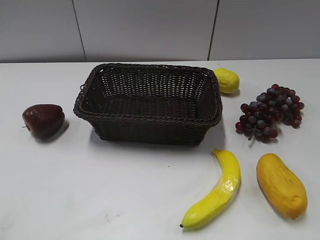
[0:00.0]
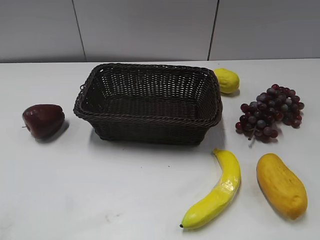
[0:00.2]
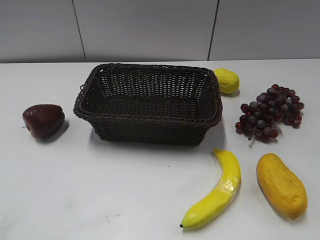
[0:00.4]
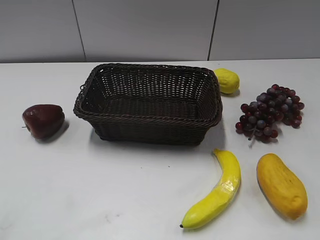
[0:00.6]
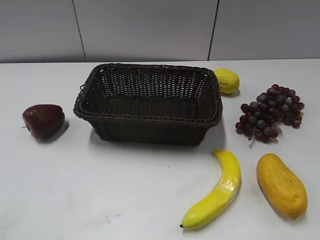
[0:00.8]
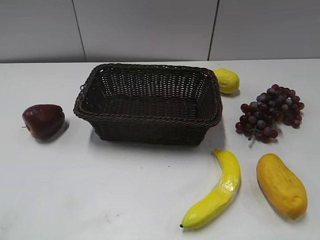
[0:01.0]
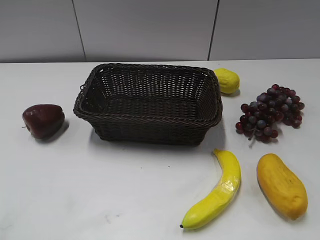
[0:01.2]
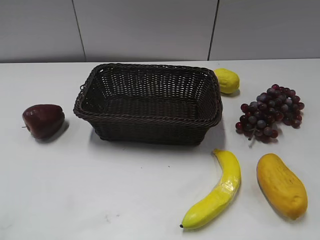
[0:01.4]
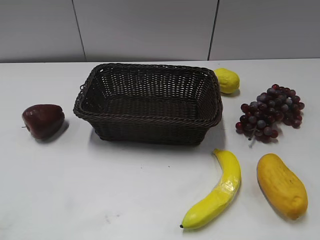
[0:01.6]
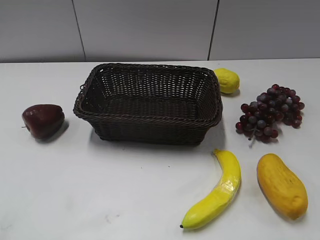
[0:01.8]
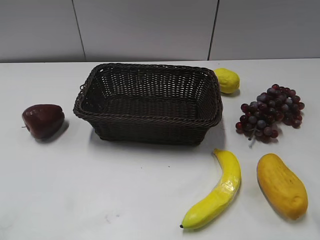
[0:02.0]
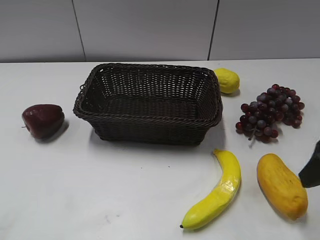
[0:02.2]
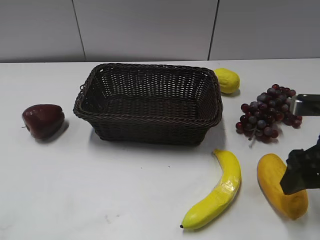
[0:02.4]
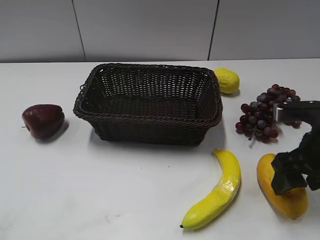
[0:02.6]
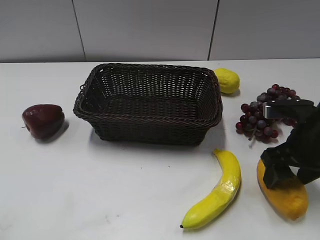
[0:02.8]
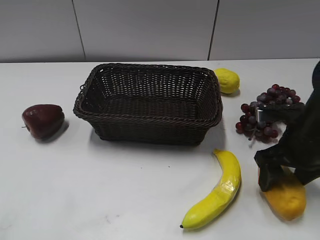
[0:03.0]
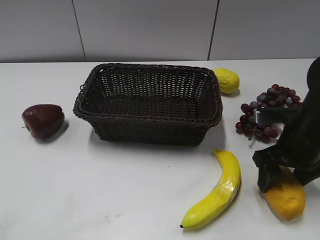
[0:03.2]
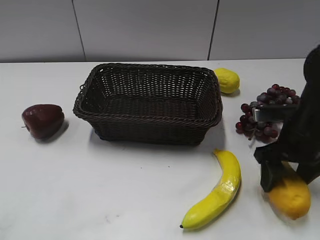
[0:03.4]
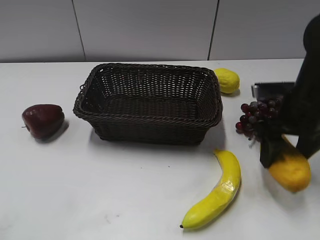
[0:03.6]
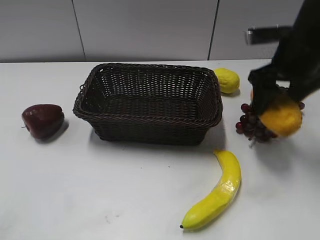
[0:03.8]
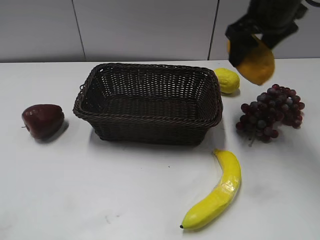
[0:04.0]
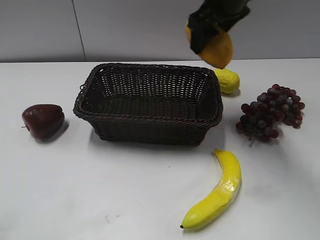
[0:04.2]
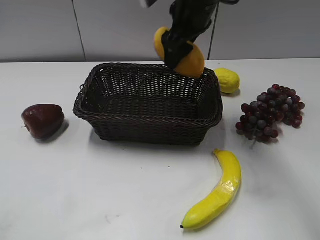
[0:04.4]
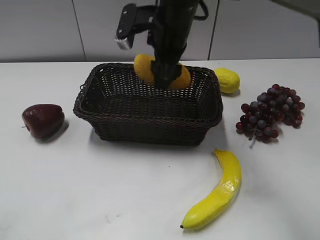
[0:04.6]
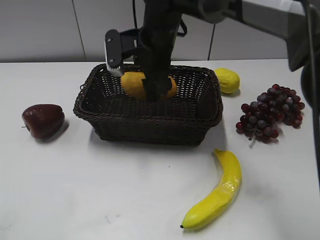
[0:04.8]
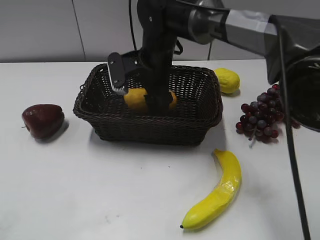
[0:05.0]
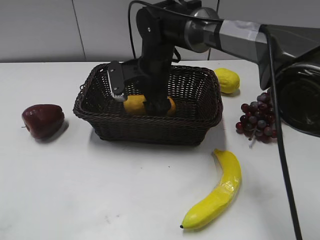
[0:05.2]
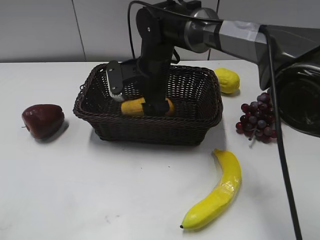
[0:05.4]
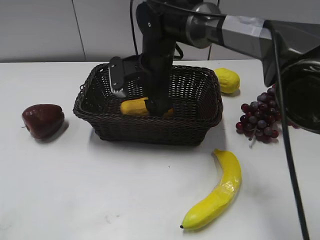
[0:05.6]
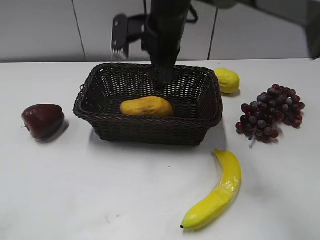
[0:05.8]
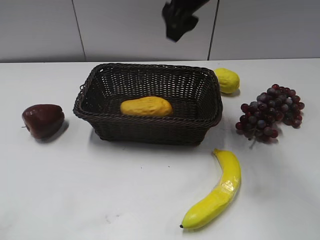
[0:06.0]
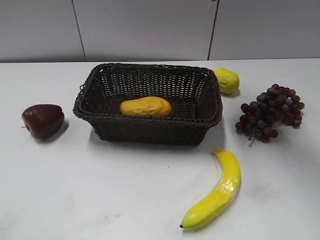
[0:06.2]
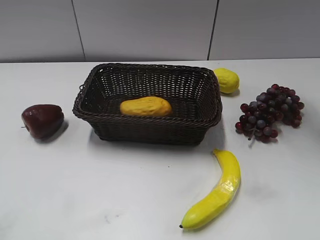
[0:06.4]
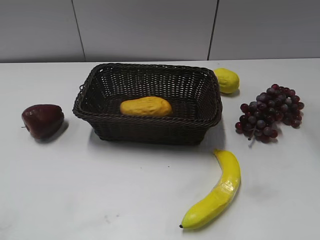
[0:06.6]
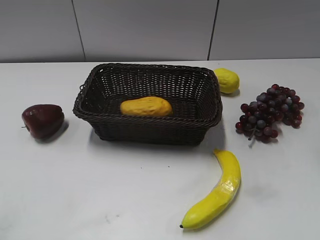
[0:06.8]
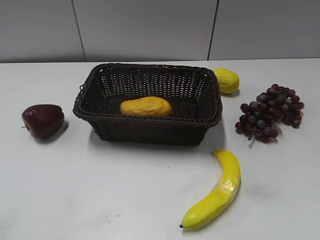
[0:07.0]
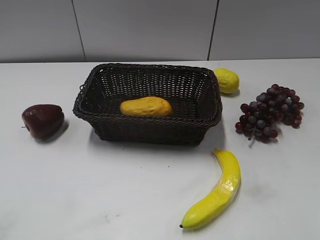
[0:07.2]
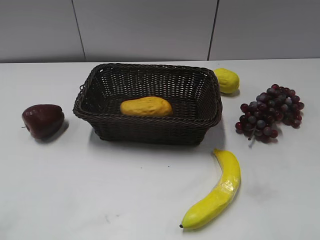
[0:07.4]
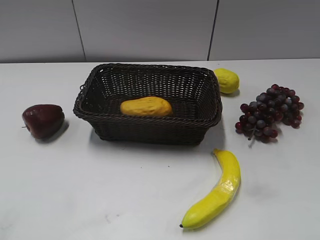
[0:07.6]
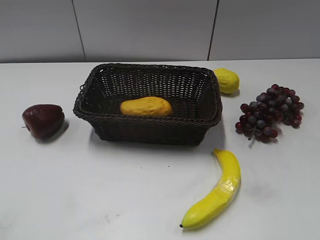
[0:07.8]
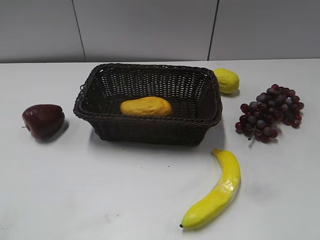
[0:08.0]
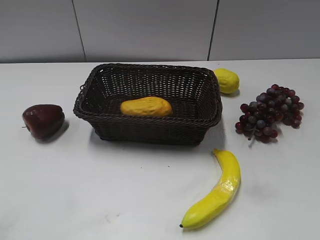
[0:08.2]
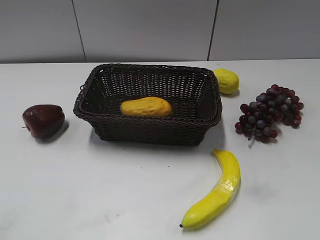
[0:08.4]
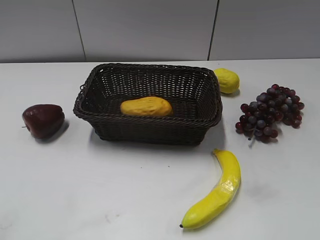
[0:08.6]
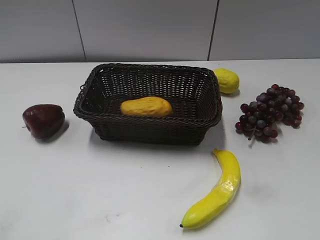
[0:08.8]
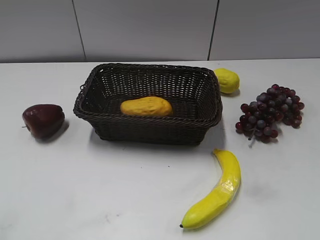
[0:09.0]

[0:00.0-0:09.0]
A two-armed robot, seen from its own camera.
Step, 0:02.2 to 0:03.0: Grasp the mango with right gripper.
Step, 0:03.2 to 0:05.4: Place the mango in the basket with right gripper.
0:01.6 to 0:03.0: The right gripper is displaced forward and downward by some 20 cm.
0:03.0 to 0:04.4: The right gripper travels to the left, forward and upward by some 25 cm.
0:04.4 to 0:06.0: The right gripper heads upward, covering roughly 5 cm.
0:06.0 to 0:07.6: The right gripper goes some 40 cm backward and to the right.

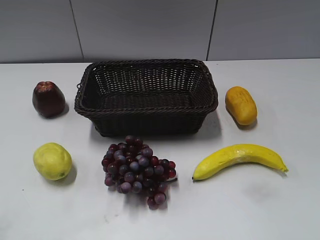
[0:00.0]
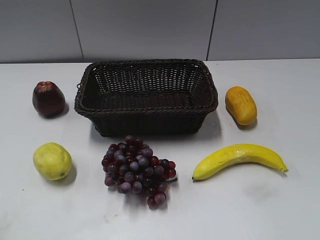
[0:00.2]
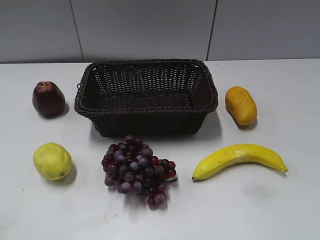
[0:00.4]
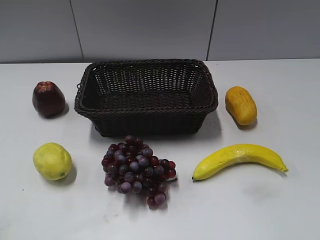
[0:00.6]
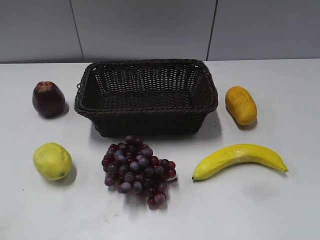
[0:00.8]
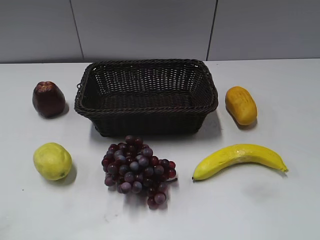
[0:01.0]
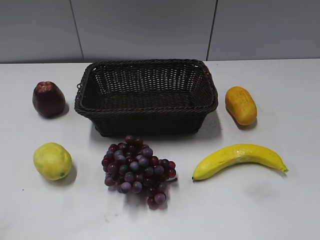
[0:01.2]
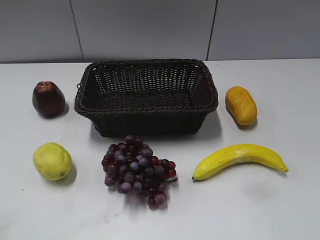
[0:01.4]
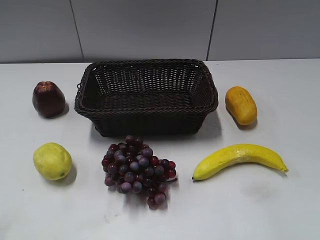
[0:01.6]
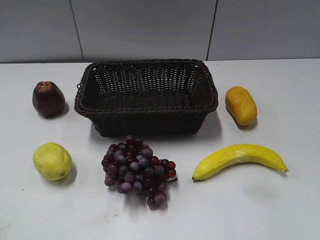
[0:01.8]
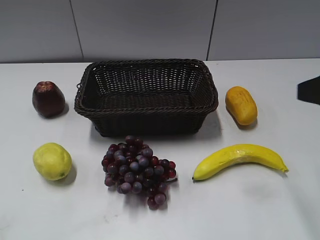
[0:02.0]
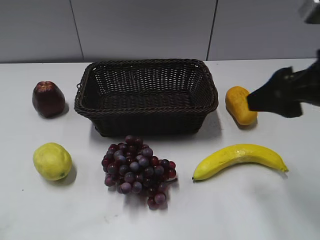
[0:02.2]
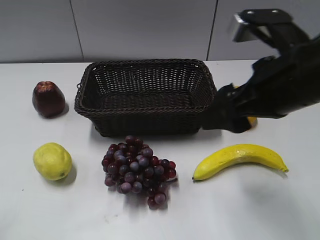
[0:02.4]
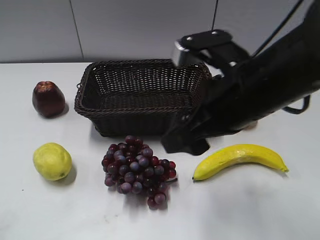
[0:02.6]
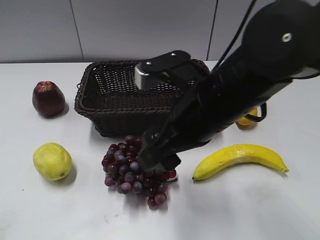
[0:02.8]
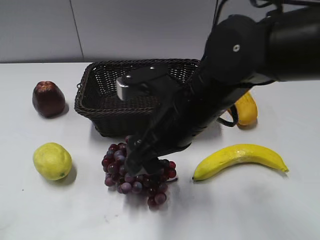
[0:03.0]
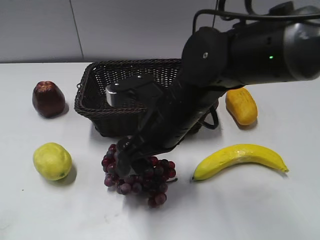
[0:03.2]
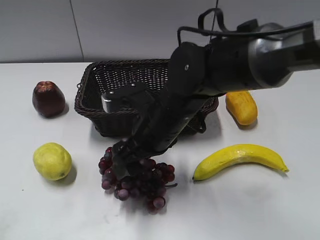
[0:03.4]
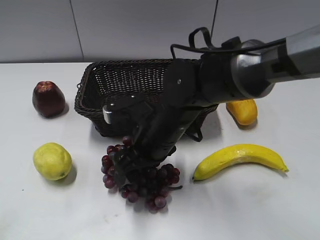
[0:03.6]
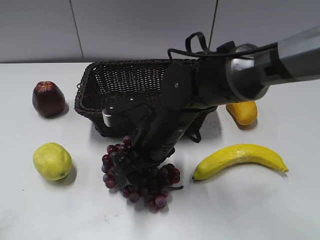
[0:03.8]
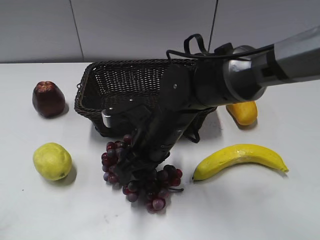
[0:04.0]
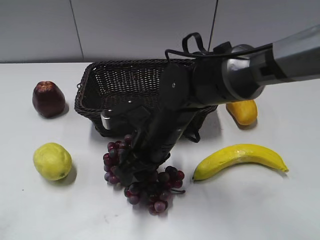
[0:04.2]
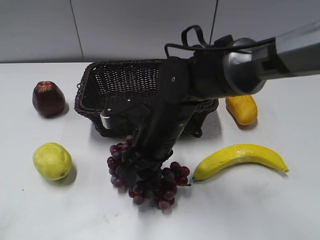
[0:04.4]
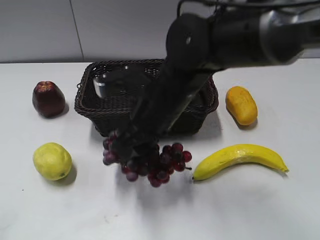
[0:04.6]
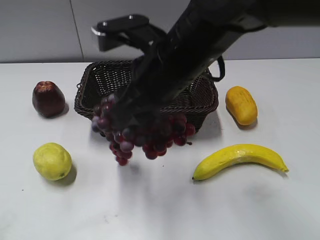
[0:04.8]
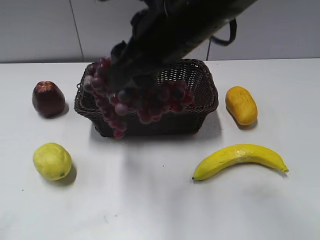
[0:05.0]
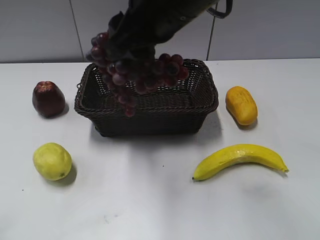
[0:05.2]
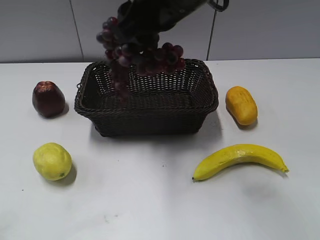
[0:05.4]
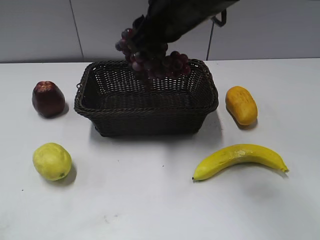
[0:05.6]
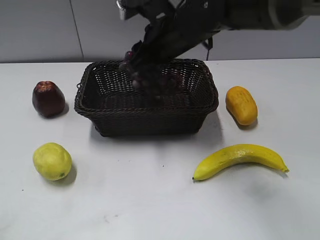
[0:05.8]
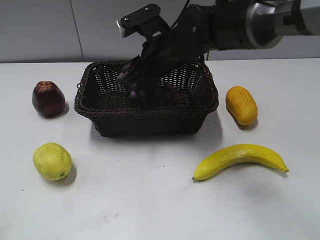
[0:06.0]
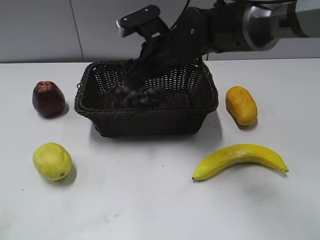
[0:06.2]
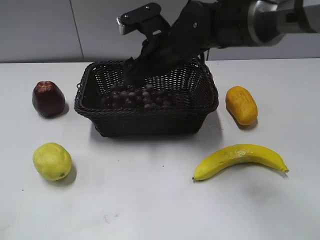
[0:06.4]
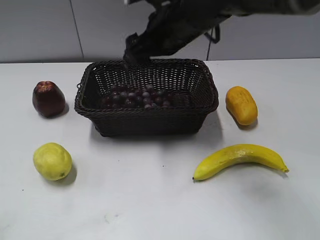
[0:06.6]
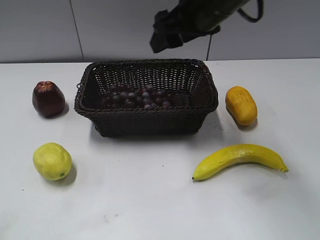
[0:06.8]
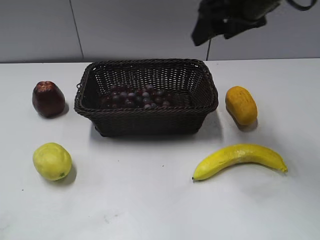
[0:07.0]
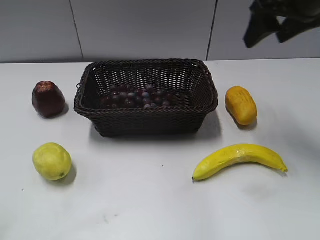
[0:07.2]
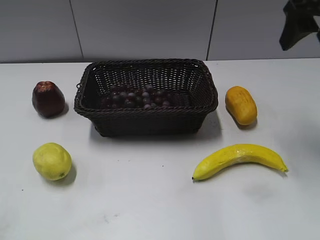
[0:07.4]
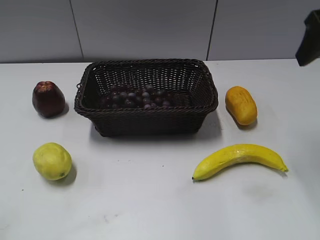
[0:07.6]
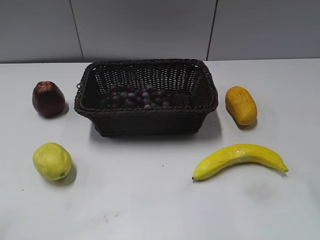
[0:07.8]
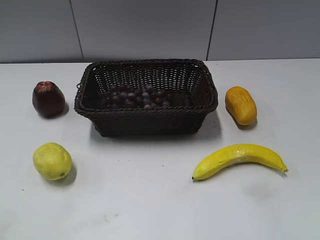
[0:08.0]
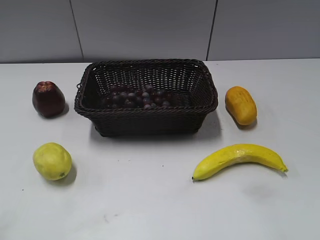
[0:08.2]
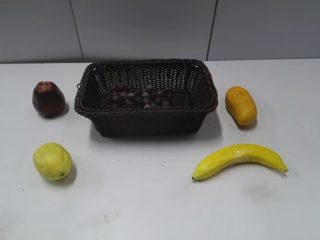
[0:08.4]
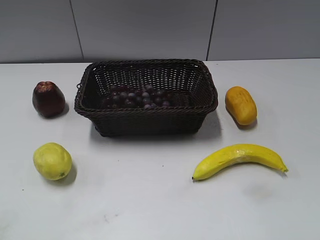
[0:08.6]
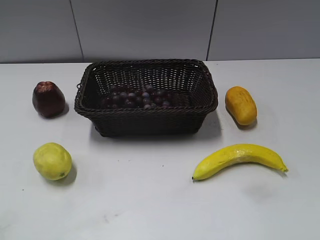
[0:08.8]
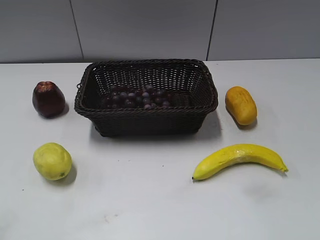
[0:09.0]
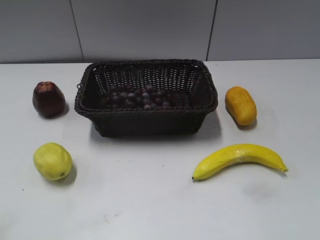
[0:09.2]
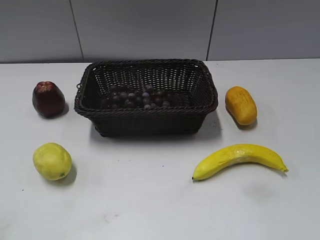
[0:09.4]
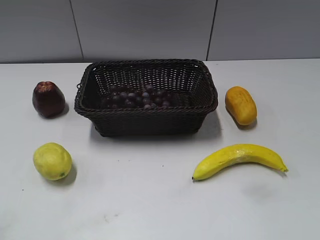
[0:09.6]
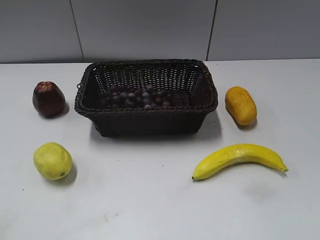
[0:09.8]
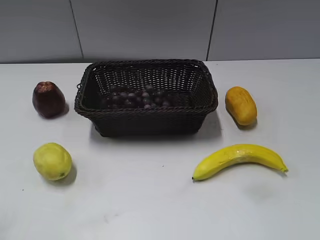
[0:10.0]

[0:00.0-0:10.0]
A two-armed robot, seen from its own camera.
Step, 0:02.0 to 0:03.6: Grasp the grape with right gripper.
Step, 0:03.8 to 0:06.2: Place the grape in the basket with right gripper.
0:01.4 to 0:02.8: The right gripper heads to the left, forward and downward, covering some 30 cm.
0:02.8 to 0:04.2: The right gripper goes some 10 cm downward and to the left, and closes.
0:04.2 to 0:05.8: The right gripper goes roughly 15 cm upward and forward.
0:05.8 to 0:07.2: The right gripper moves to the right and upward, about 20 cm, and opens.
0:07.2 to 0:08.6: The right gripper heads backward, covering approximately 30 cm.

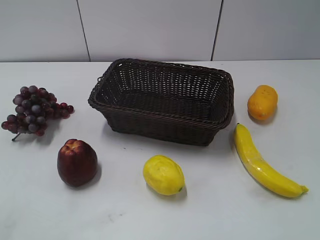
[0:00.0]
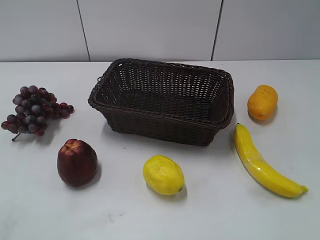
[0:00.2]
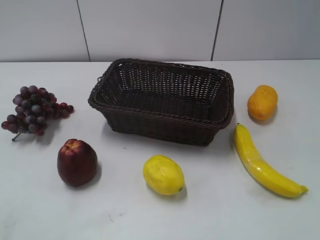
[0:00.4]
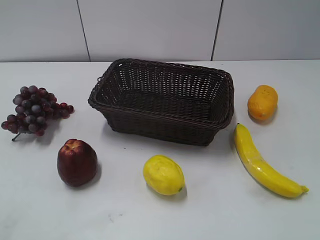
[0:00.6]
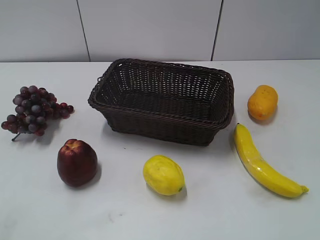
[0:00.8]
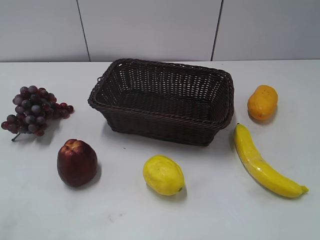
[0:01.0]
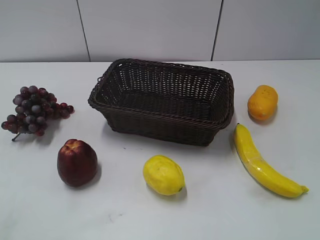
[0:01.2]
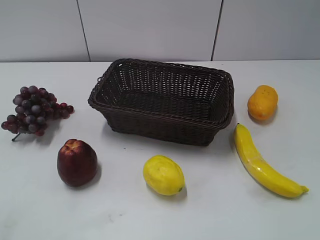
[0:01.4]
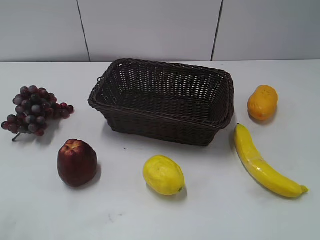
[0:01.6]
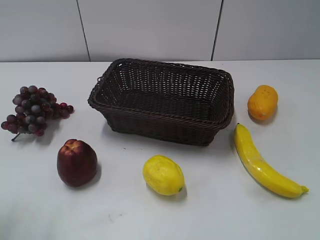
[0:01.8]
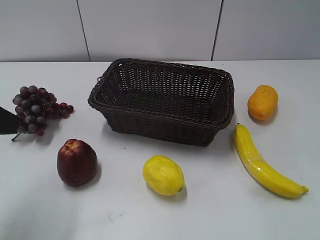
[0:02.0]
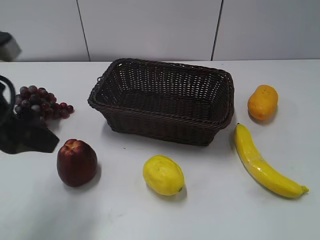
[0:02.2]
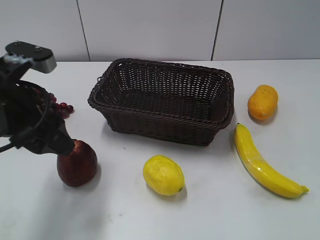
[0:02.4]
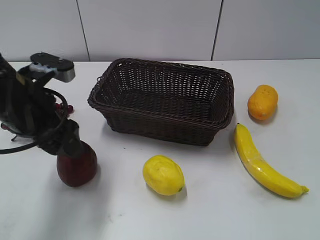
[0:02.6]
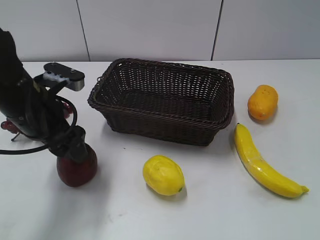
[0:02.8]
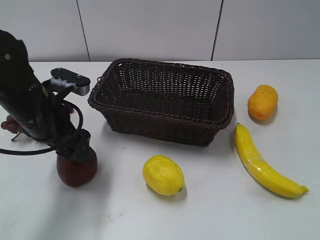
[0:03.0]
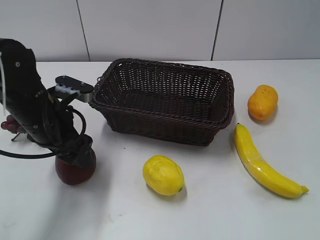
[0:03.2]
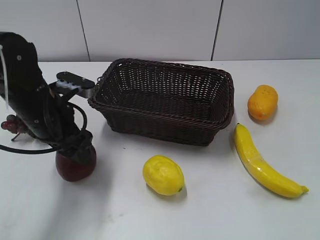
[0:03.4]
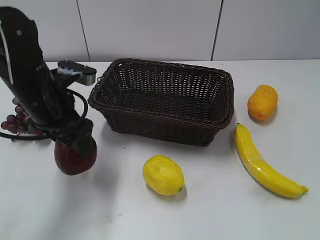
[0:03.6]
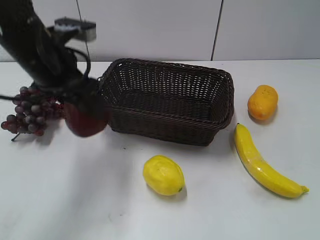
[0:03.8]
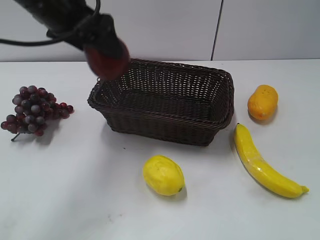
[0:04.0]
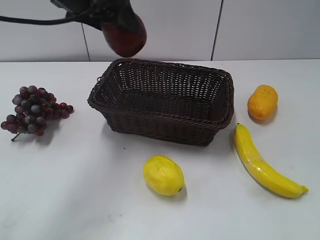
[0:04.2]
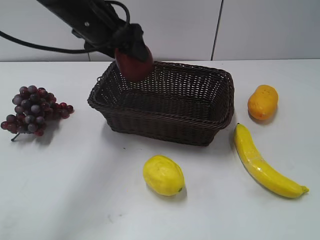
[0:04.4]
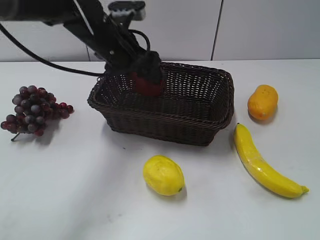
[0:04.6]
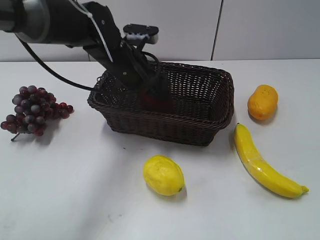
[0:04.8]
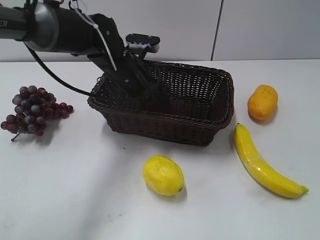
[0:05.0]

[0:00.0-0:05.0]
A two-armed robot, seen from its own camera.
Step, 0:02.0 to 0:03.2: Grasp the apple with left gripper.
0:01.6 to 0:03.4: The left gripper heads forward, downward and to the right, covering roughly 30 cm.
0:03.4 to 0:05.0: The left gripper goes some 15 cm to the right and forward, and travels upward and back again, some 15 cm each way.
